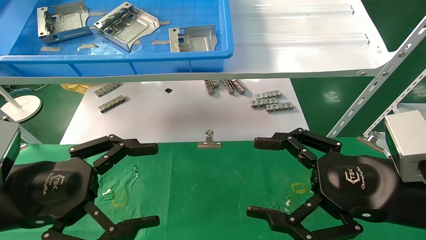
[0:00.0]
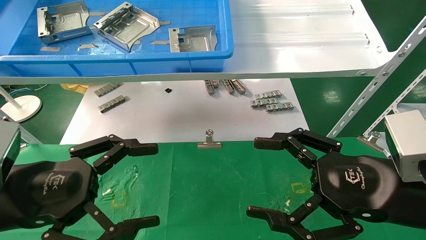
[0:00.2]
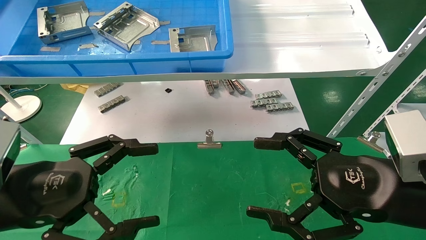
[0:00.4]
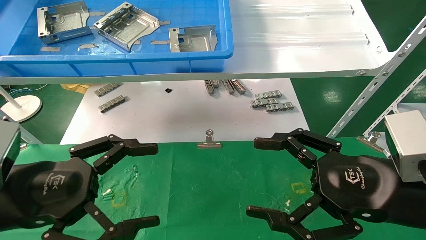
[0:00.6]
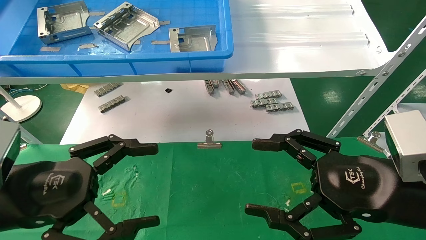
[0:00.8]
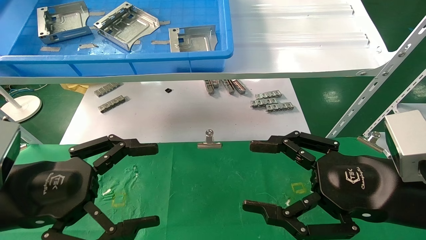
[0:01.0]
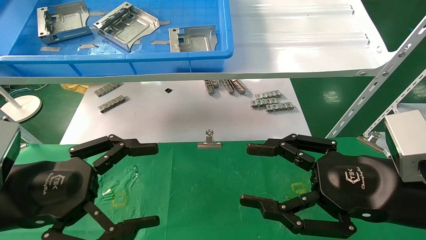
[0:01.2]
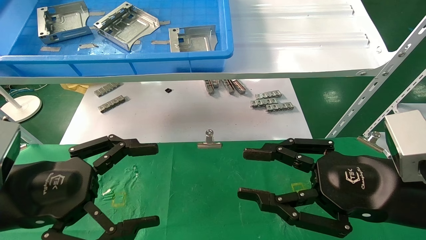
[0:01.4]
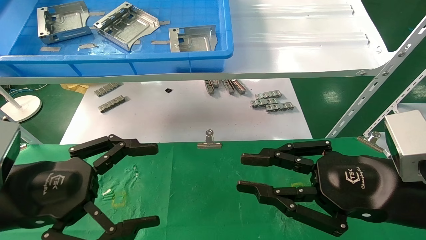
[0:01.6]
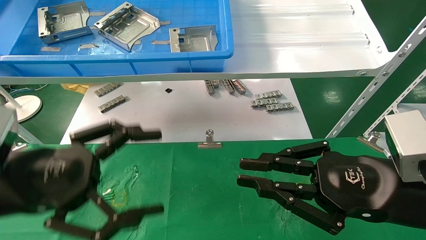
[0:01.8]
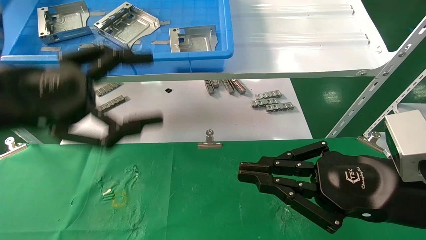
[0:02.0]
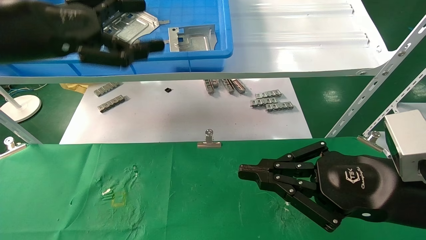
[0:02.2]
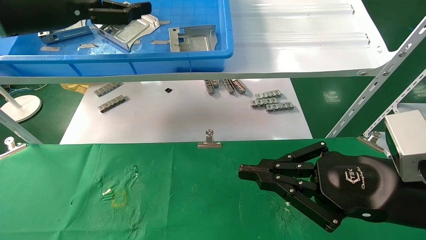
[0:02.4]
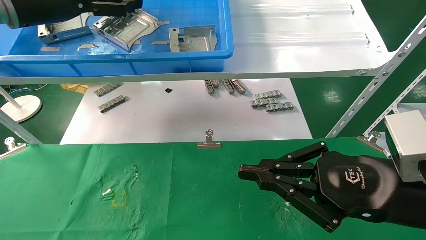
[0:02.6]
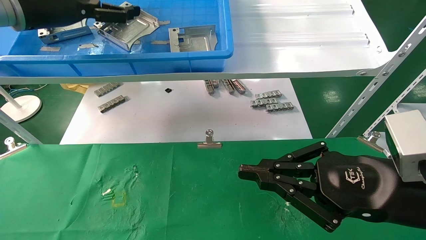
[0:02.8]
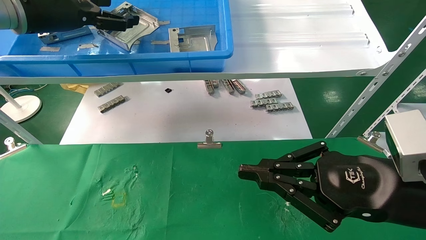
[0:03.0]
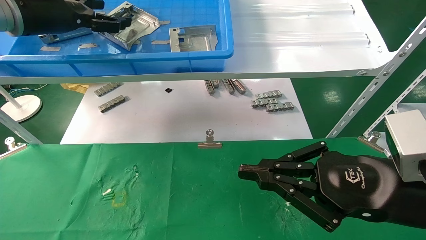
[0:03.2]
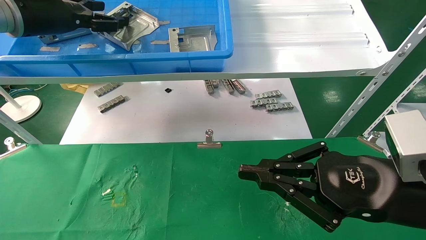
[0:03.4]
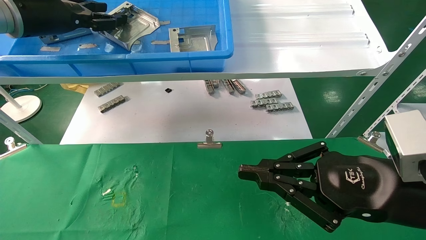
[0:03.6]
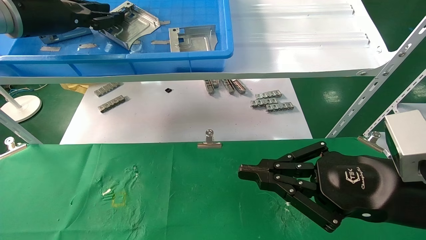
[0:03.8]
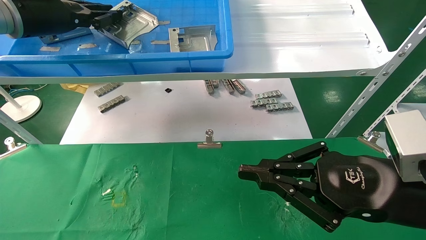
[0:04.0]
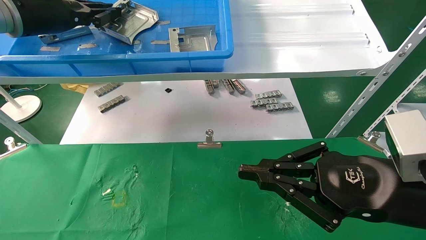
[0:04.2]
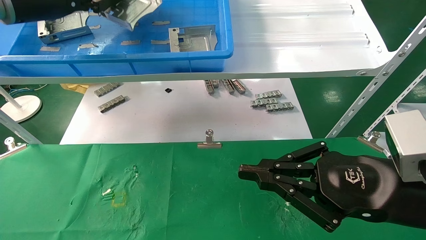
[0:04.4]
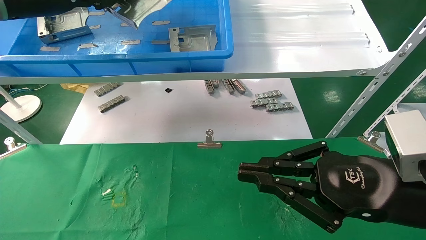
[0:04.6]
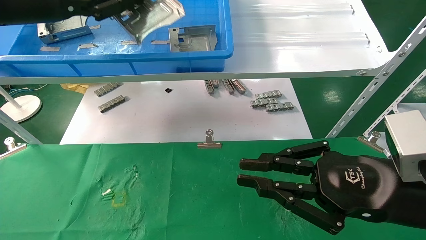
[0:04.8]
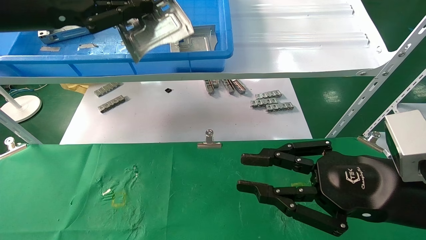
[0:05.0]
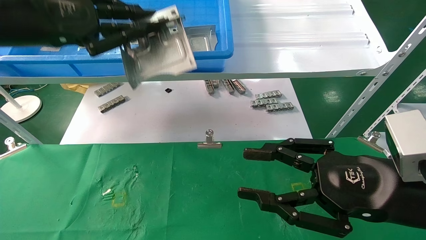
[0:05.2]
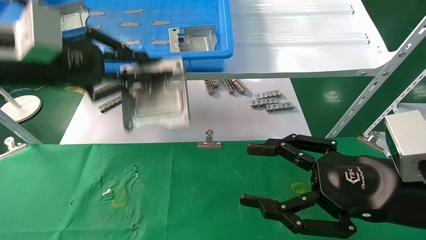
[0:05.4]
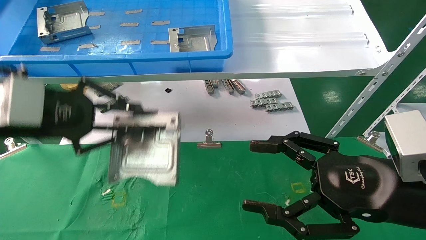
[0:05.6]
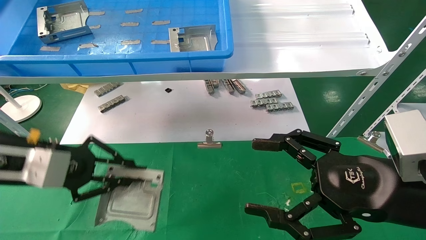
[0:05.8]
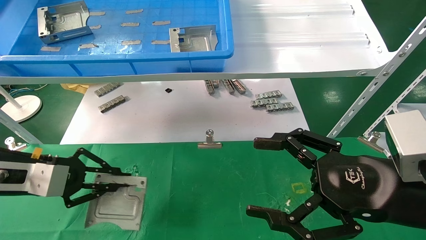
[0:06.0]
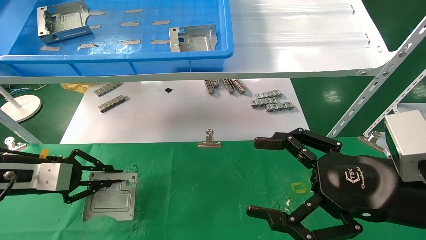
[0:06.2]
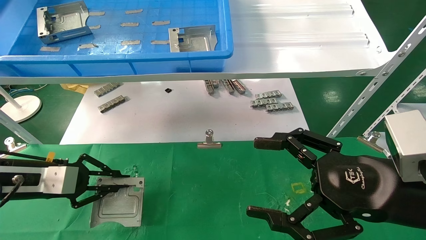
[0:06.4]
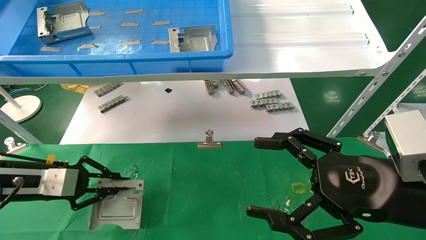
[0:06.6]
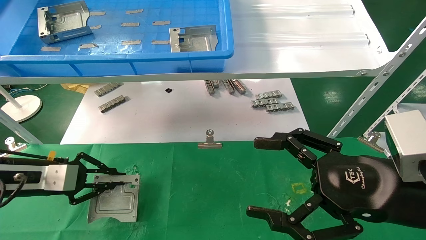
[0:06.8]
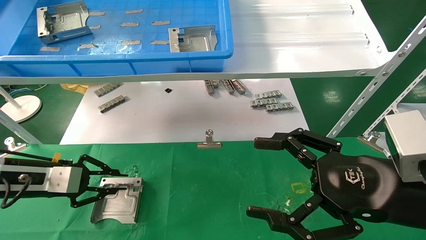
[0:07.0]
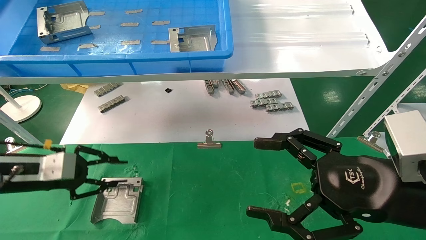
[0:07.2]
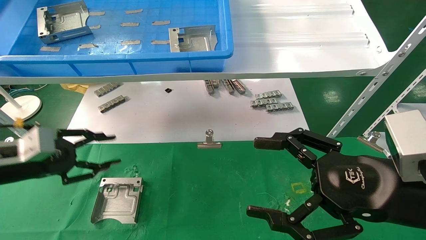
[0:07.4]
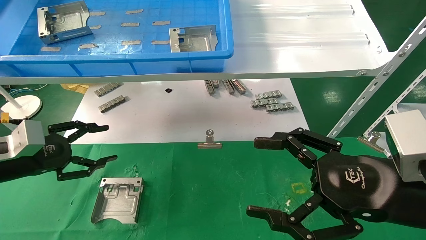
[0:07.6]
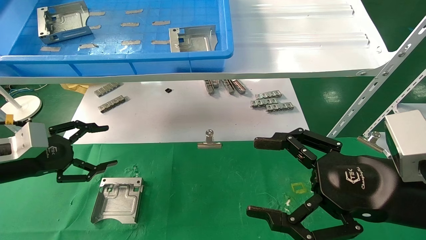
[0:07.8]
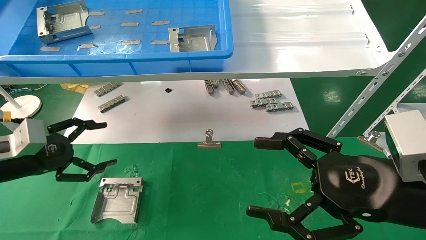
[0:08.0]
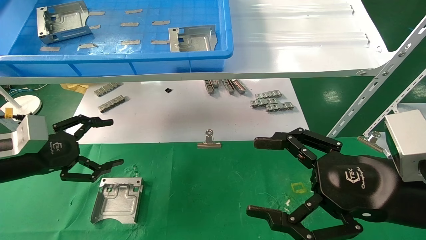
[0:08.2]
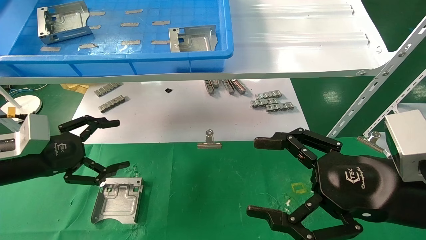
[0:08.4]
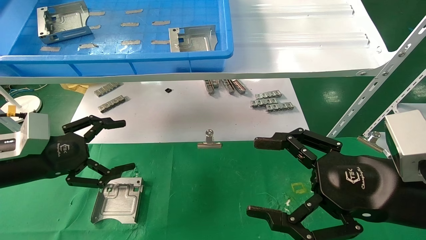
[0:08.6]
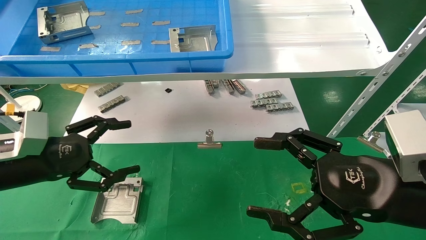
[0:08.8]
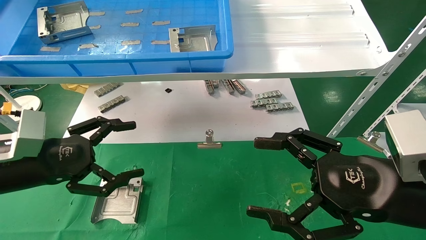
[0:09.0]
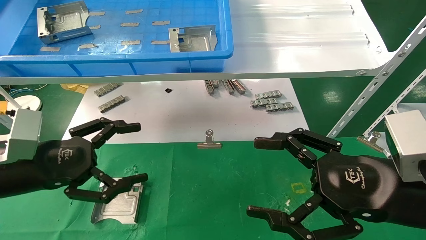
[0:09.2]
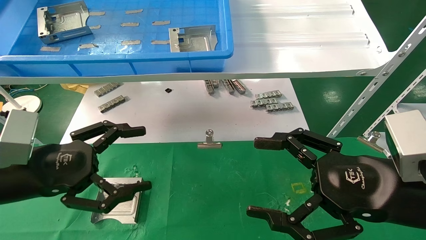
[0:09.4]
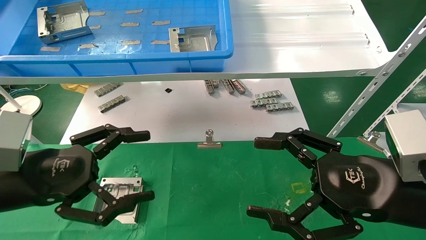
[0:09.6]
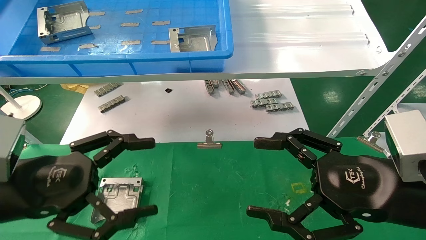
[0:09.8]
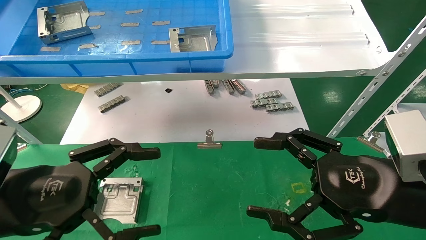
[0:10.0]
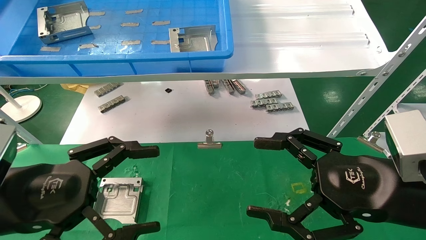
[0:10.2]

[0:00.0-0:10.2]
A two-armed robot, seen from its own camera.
Task of the whole recording: use the mechanical arm to pick up the parts and place them on the table.
Step, 0:01.6 to 0:04.6: Pick up the hard drive bracket from the feeding area.
Step, 0:04.8 to 0:07.0: Place the hard drive bracket into the box.
0:00.0 to 0:01.4: The right gripper closes.
0:01.4 to 0:03.0: The left gripper is displaced upward and forward by about 30 cm; the right gripper closes.
0:03.0 to 0:04.4: The left gripper closes its fingers.
0:04.4 to 0:05.8: The left gripper heads downward and backward, covering approximately 20 cm. The right gripper opens up.
0:05.8 to 0:07.2: The left gripper goes some 10 cm downward and to the left.
0:07.2 to 0:08.8: The left gripper shifts by some 5 cm, and opens up.
0:08.8 to 0:10.2: The left gripper moves backward and to the right, about 10 cm.
